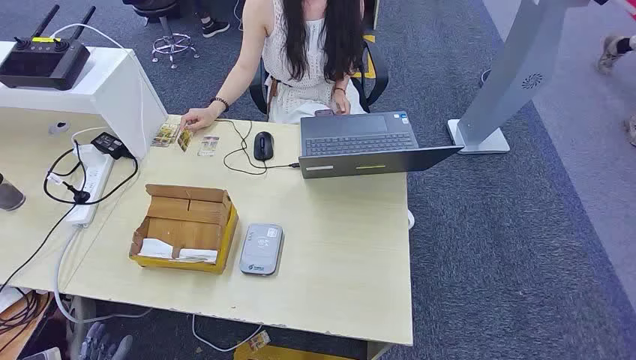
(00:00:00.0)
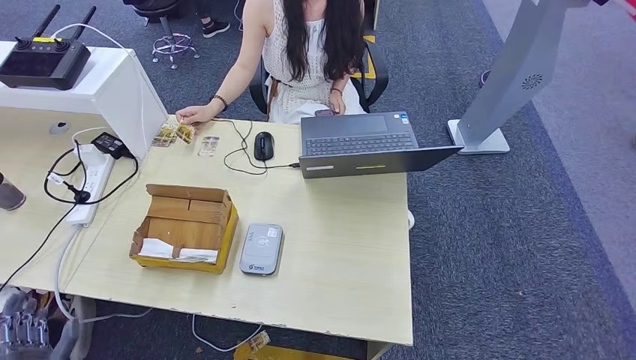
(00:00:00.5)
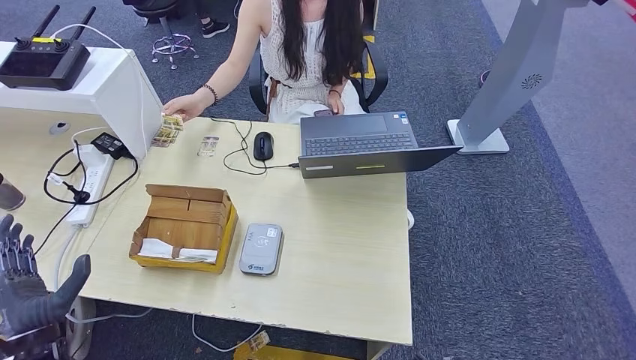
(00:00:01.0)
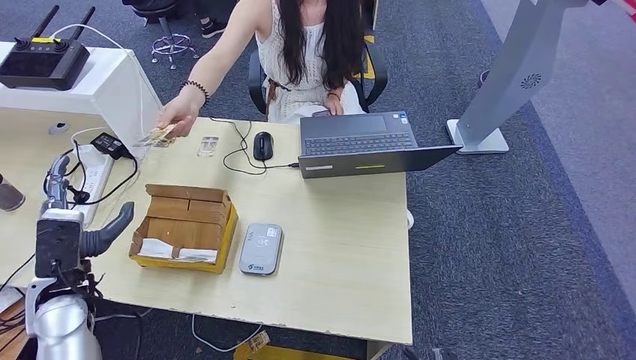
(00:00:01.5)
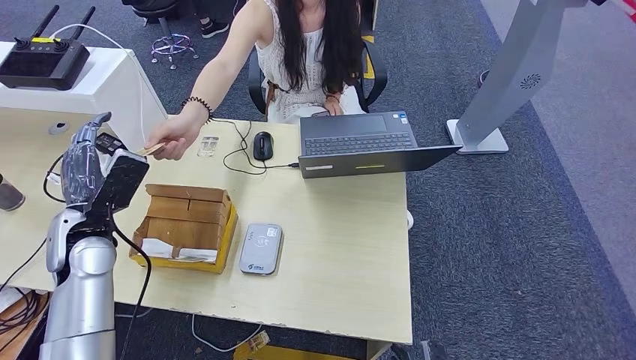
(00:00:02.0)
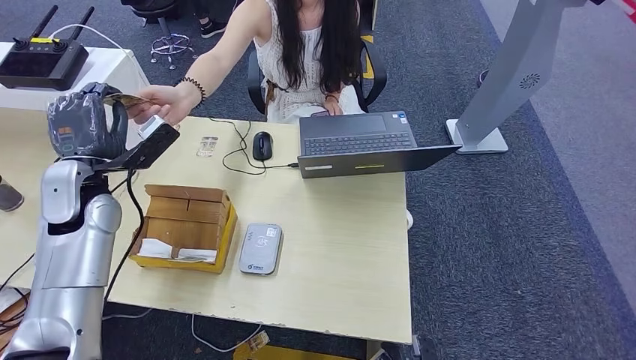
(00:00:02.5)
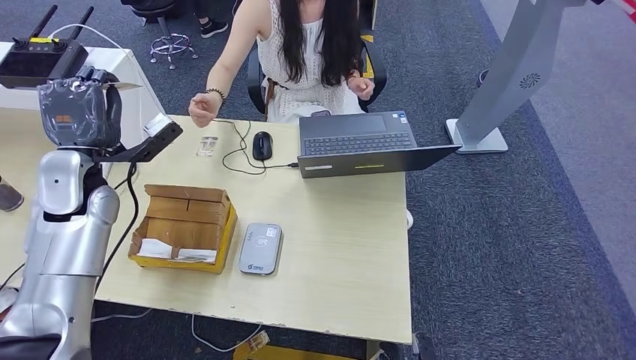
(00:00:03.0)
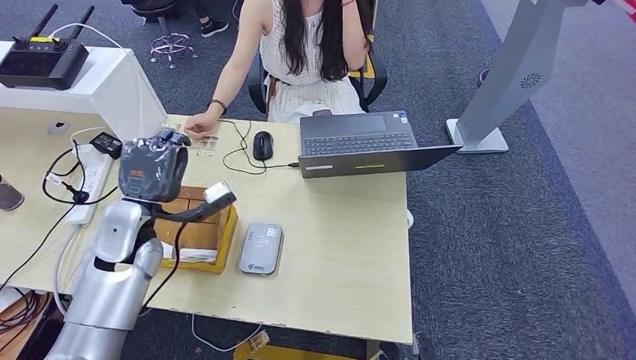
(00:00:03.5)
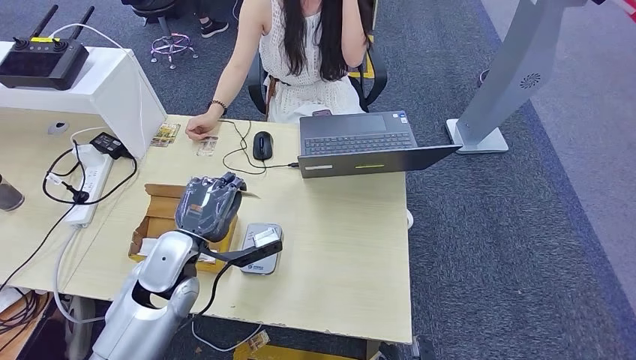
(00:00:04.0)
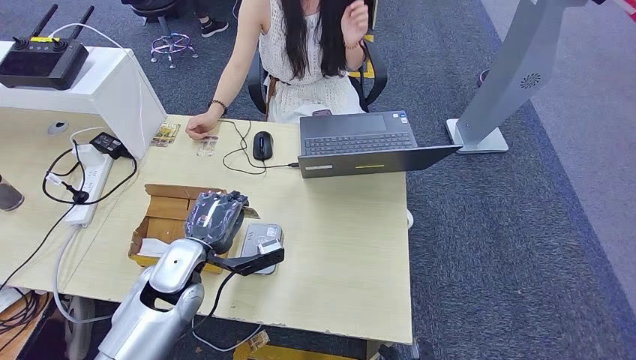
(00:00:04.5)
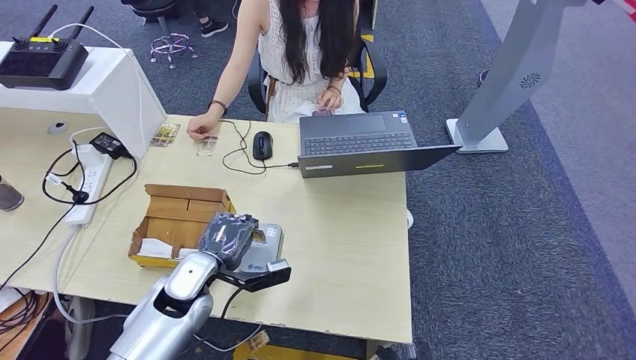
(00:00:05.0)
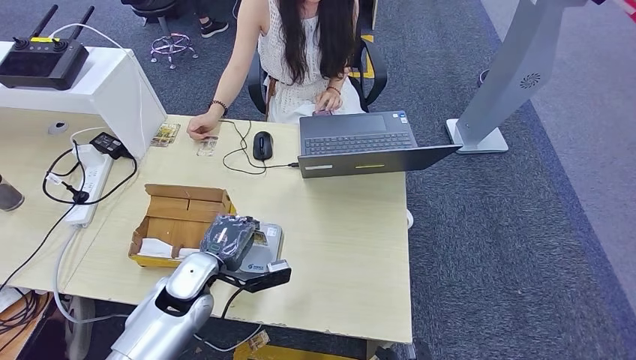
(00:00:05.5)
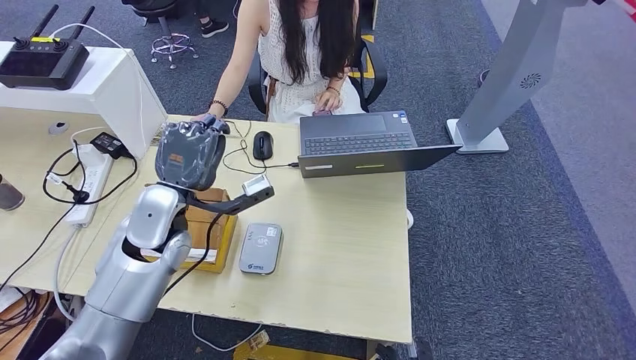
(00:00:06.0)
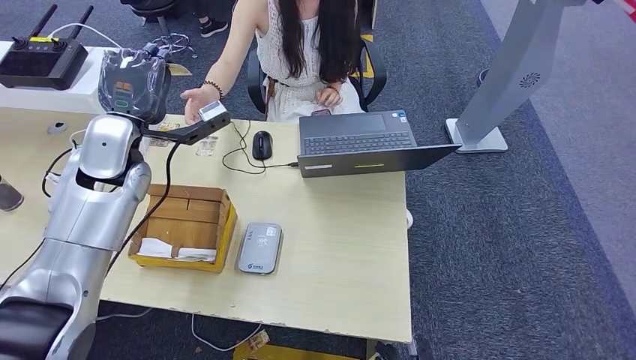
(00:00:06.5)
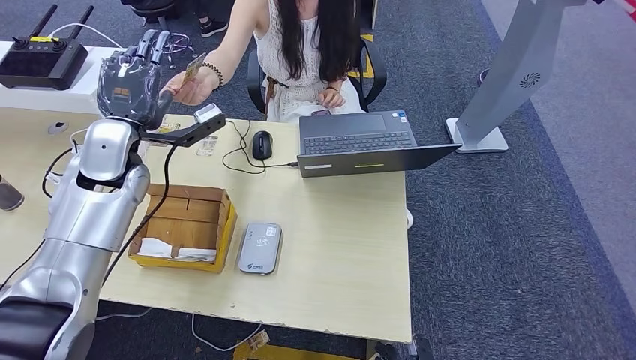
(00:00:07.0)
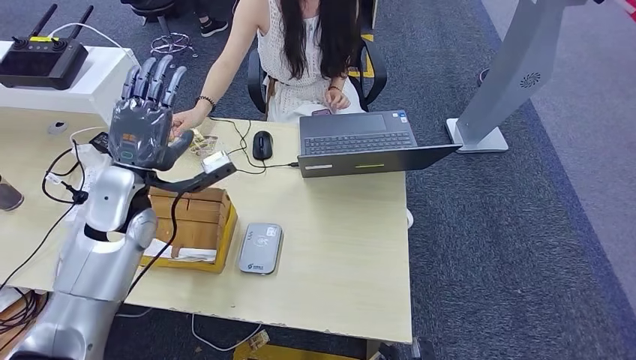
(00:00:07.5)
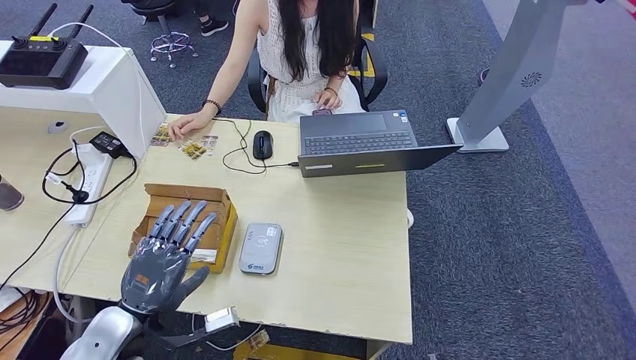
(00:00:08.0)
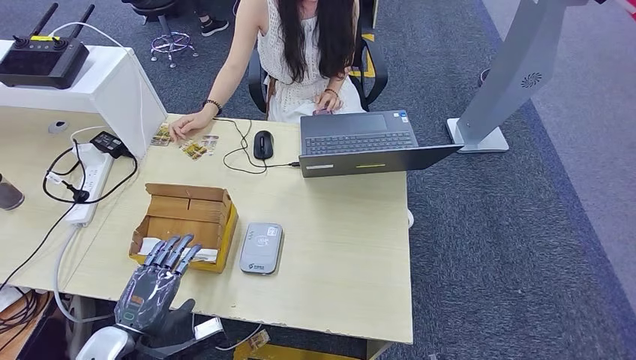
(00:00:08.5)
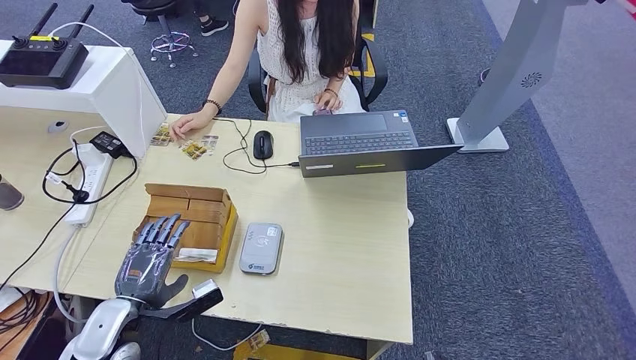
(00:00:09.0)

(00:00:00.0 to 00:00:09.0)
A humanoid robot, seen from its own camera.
Step, 00:00:00.0 - 00:00:03.0: Take the ID card from the person's hand.
Step, 00:00:03.5 - 00:00:05.0: Place the ID card on the card reader.
Step, 00:00:05.5 - 00:00:07.0: Hand the ID card to the person.
00:00:02.0 - 00:00:04.5: The left hand travels to the right and downward by some 15 cm.
00:00:07.0 - 00:00:09.0: The left hand shifts some 30 cm backward and downward.

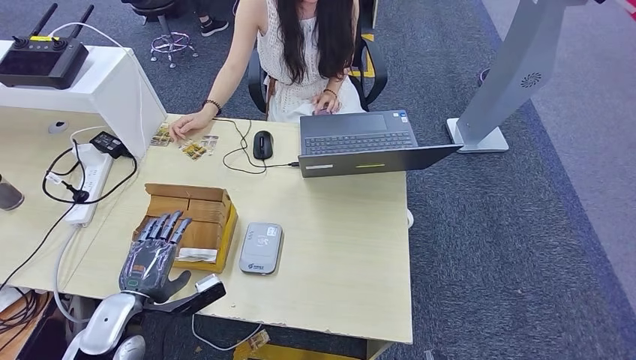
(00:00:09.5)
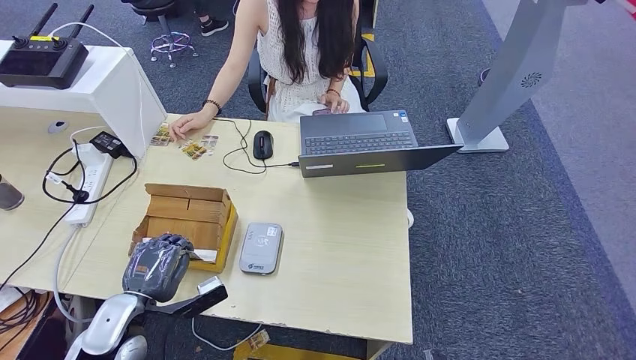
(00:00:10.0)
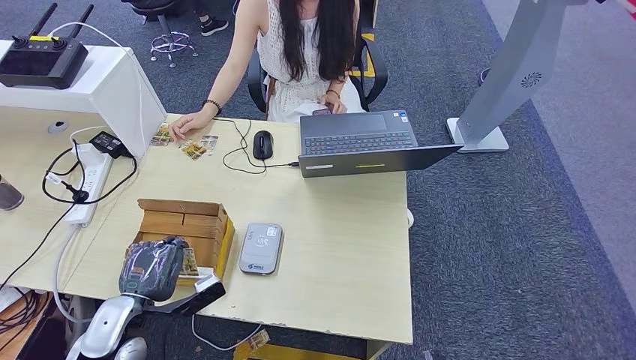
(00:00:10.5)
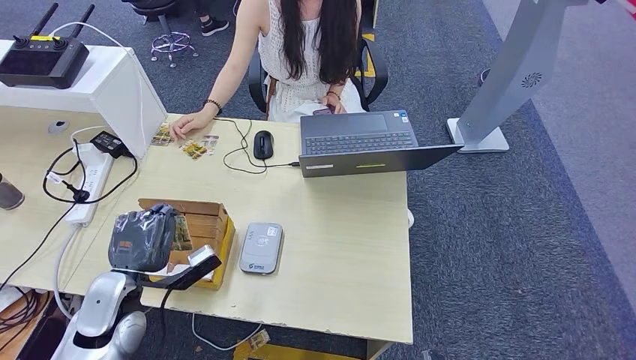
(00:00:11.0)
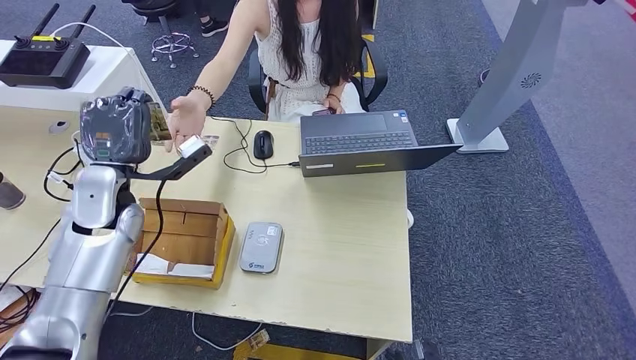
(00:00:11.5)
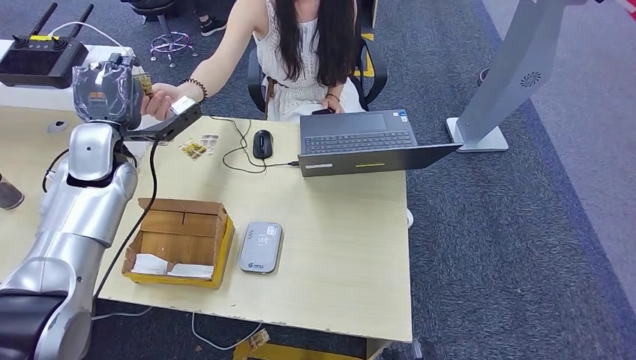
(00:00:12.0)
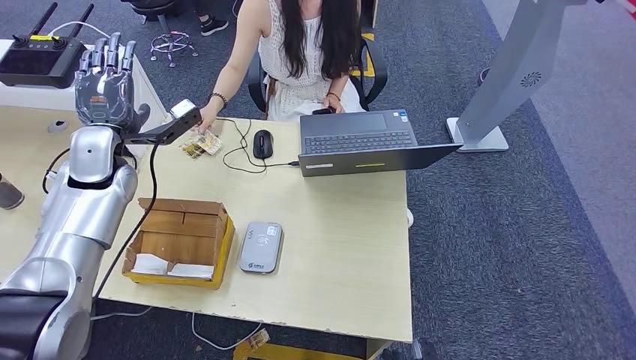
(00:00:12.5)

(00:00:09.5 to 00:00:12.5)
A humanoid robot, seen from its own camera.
Step, 00:00:11.5 - 00:00:12.5: Hand the room key to the person.
00:00:09.5 - 00:00:11.0: There are only small adjustments of the hands.
00:00:11.0 - 00:00:12.5: The left hand goes approximately 25 cm forward and upward.
